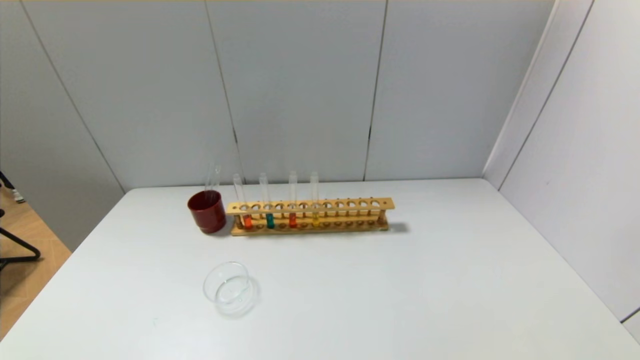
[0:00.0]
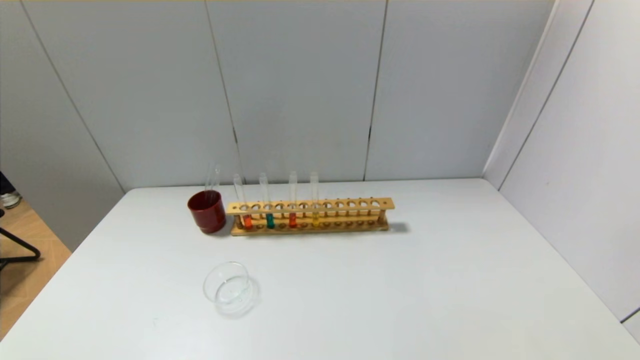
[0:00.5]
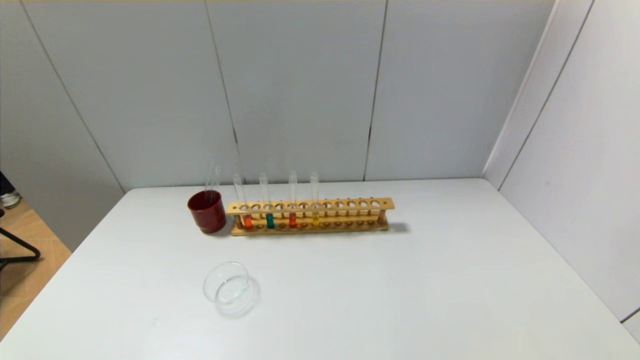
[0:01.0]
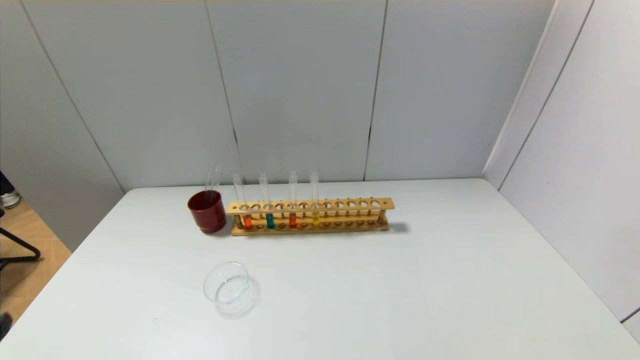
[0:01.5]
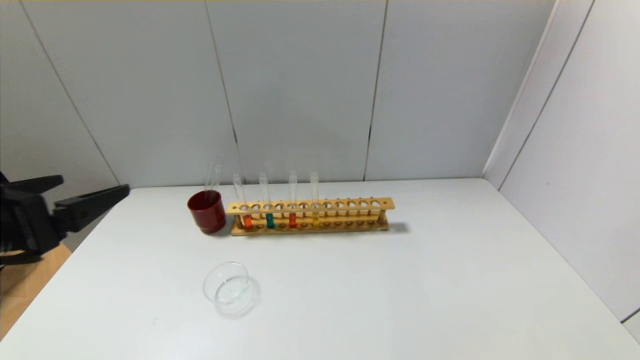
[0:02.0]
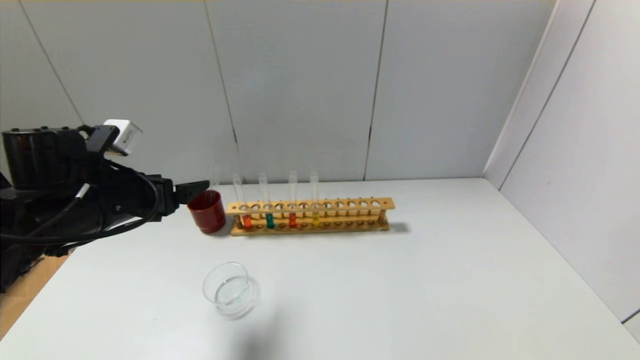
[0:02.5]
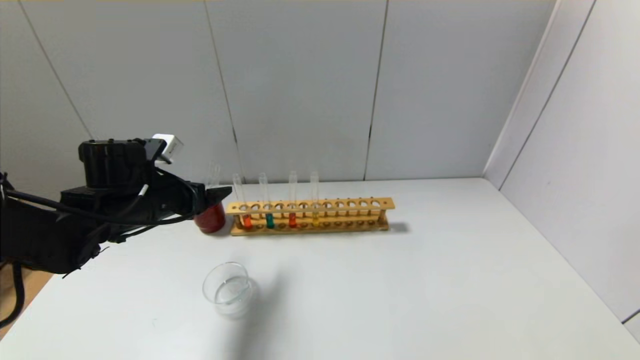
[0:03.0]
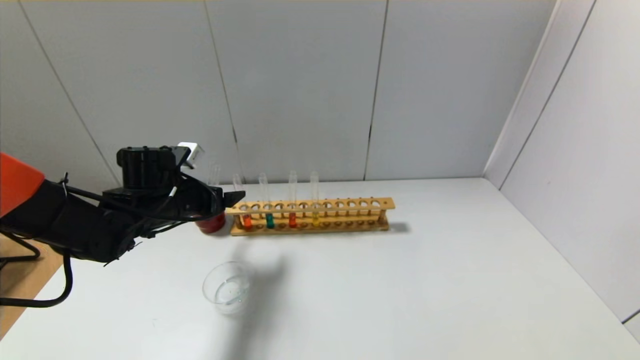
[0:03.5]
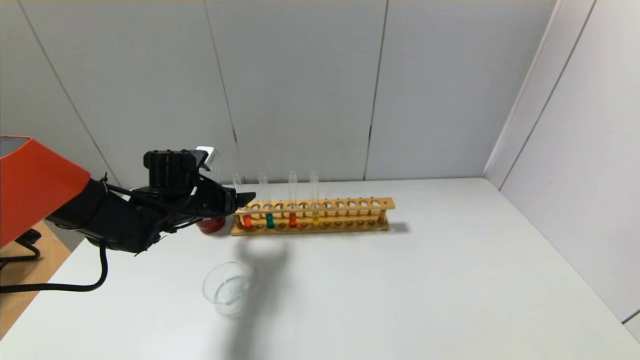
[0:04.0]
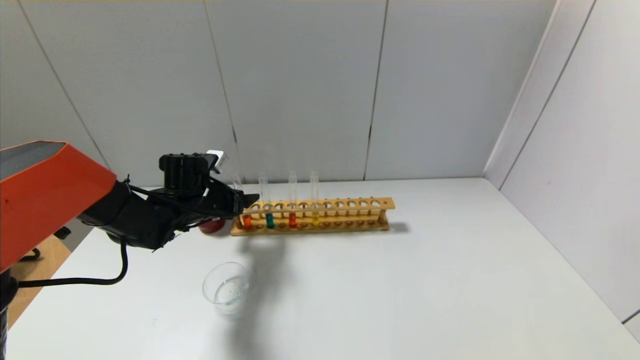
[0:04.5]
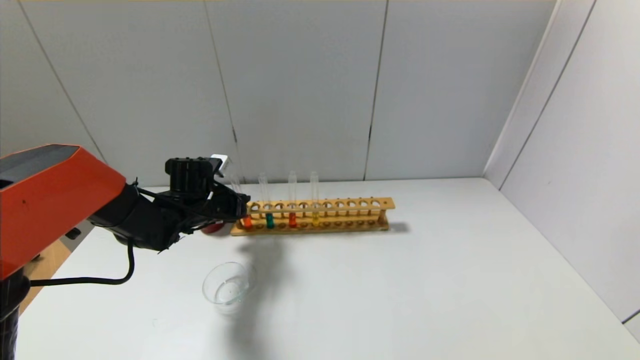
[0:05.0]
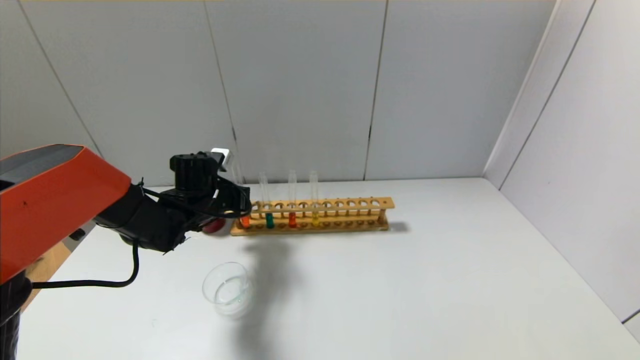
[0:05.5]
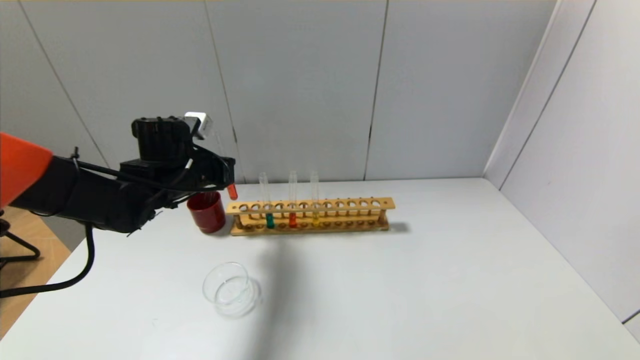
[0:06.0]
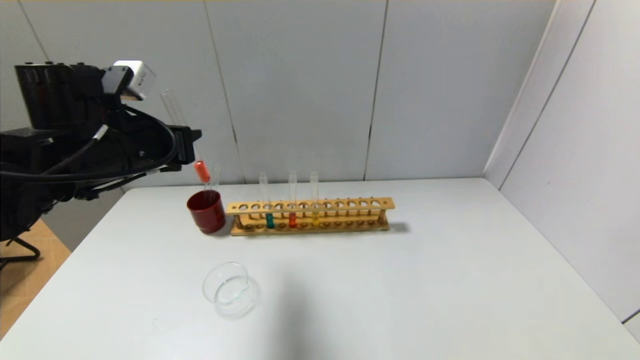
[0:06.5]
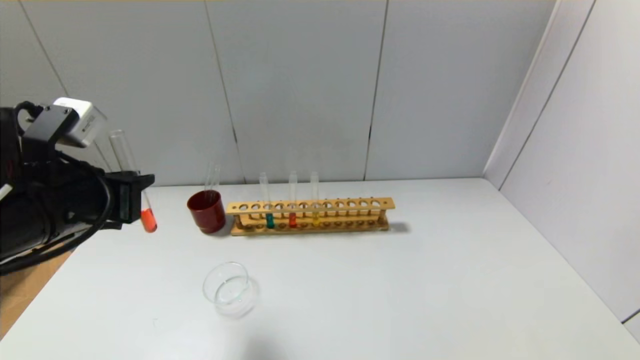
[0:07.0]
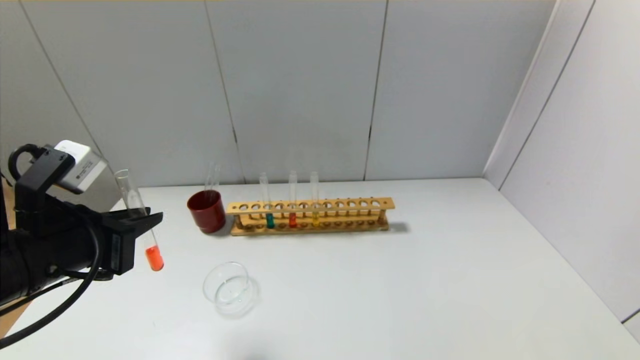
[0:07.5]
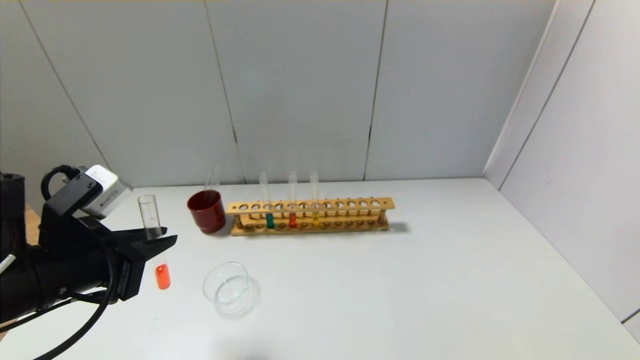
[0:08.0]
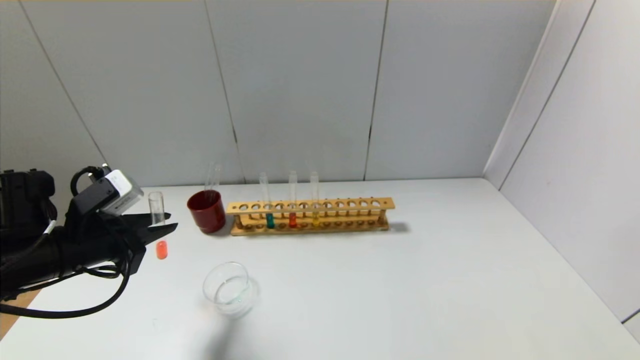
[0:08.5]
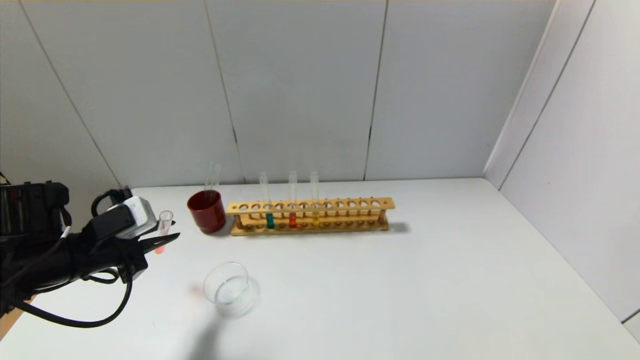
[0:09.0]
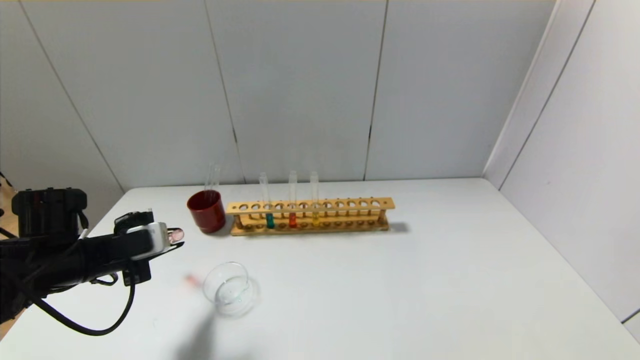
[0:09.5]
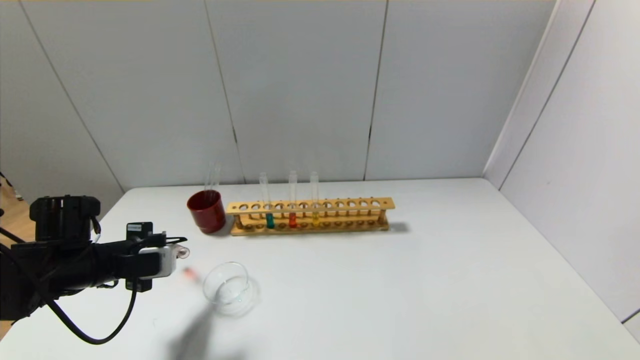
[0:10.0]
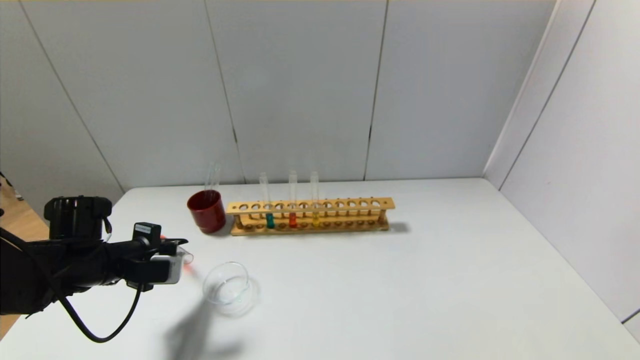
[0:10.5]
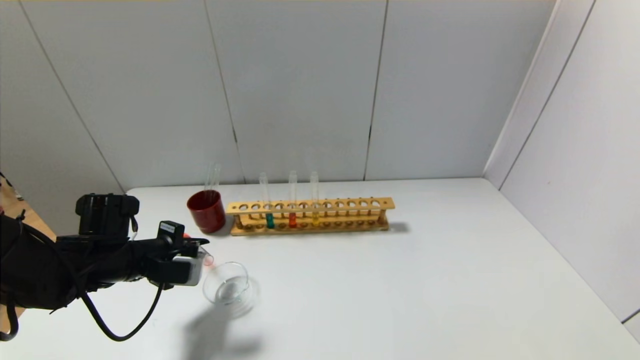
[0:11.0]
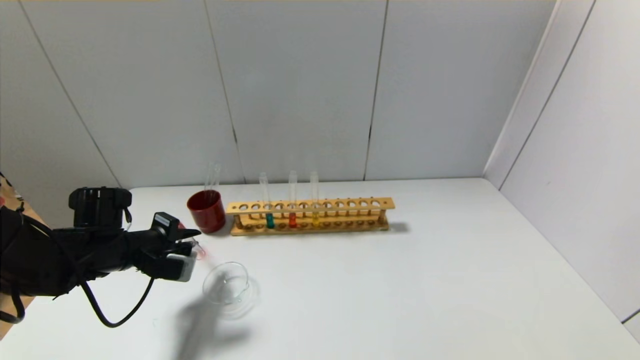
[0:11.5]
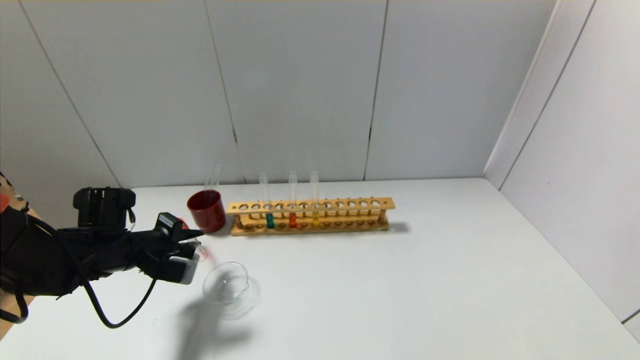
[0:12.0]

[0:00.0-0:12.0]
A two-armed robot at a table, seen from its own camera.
Step, 0:00.0 to 0:05.0: Grasp the red reagent with the left gripper.
0:00.0 to 0:02.0: The left gripper heads upward and forward, covering approximately 25 cm.
0:02.0 to 0:04.0: The left gripper is displaced forward and downward by approximately 25 cm.
0:04.0 to 0:06.0: The left gripper travels upward by some 5 cm, and closes.
0:06.0 to 0:08.0: The left gripper shifts roughly 20 cm backward.
0:08.0 to 0:10.0: The left gripper shifts about 15 cm downward, forward and to the left.

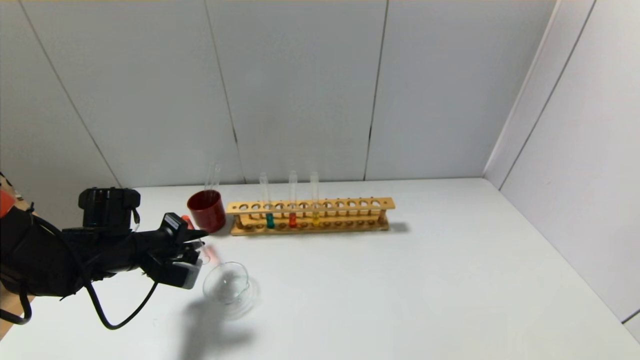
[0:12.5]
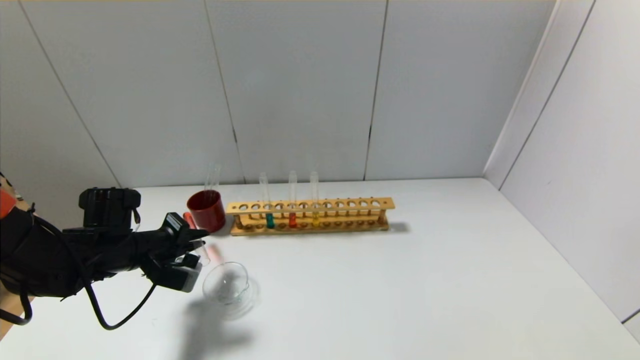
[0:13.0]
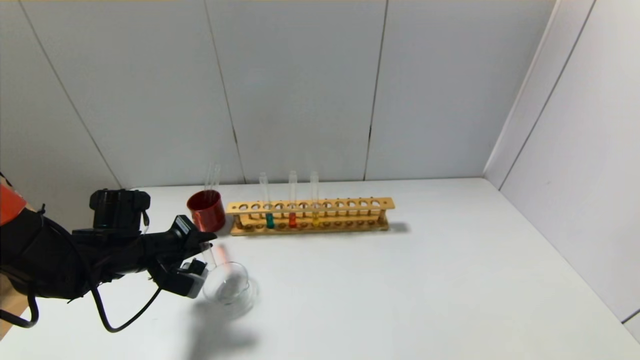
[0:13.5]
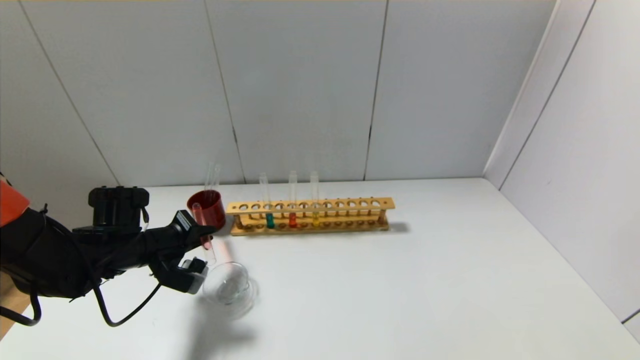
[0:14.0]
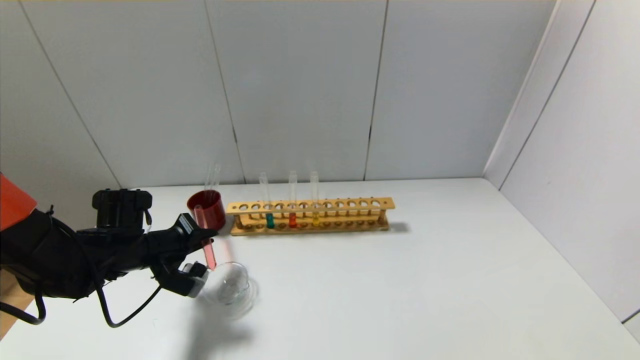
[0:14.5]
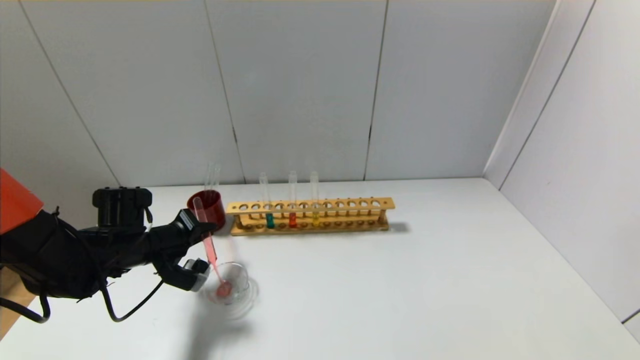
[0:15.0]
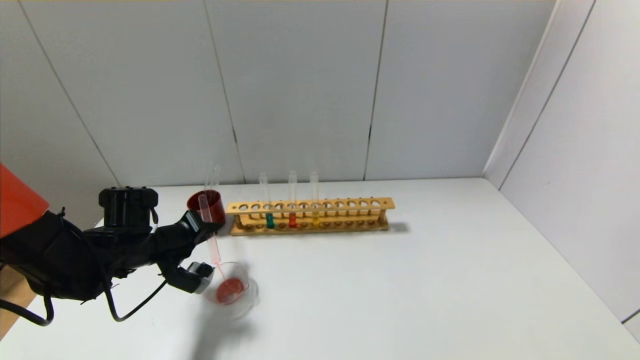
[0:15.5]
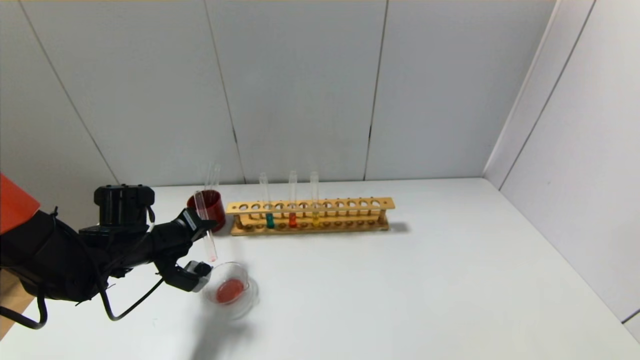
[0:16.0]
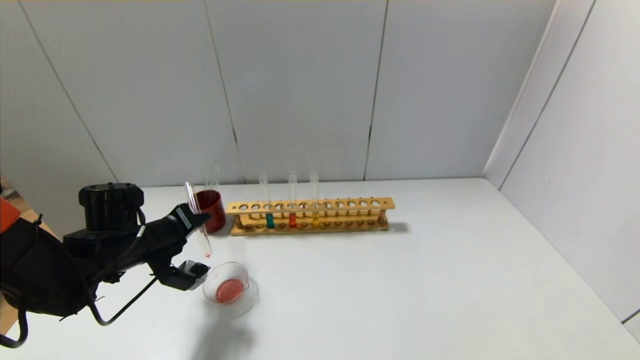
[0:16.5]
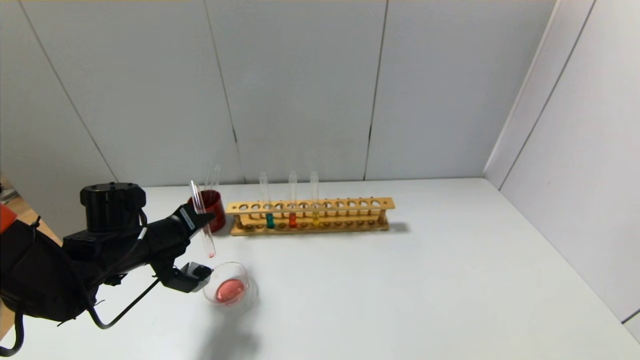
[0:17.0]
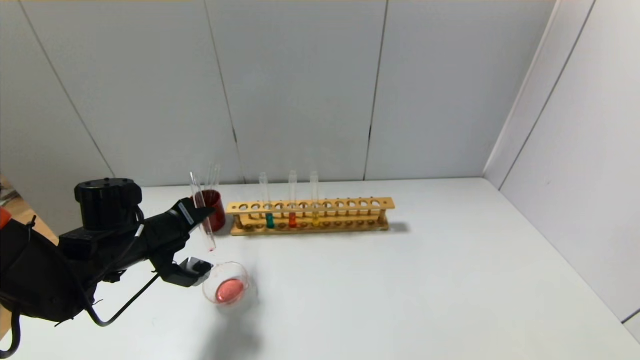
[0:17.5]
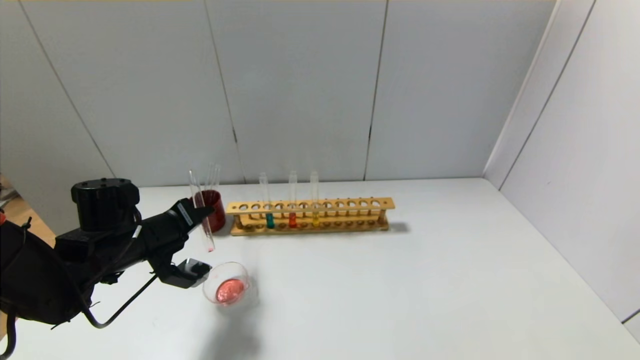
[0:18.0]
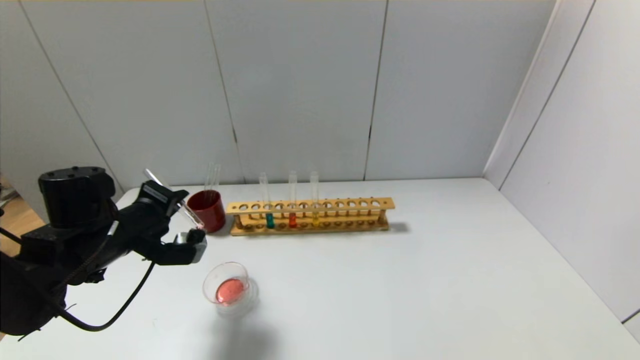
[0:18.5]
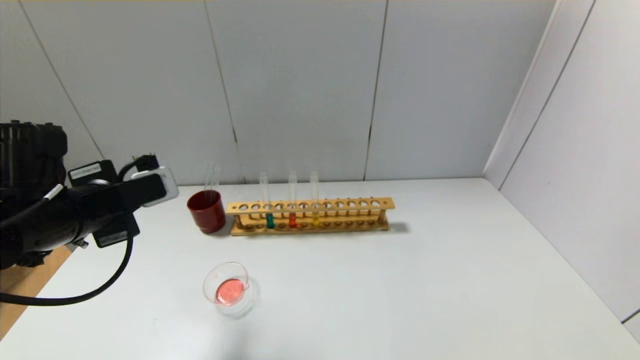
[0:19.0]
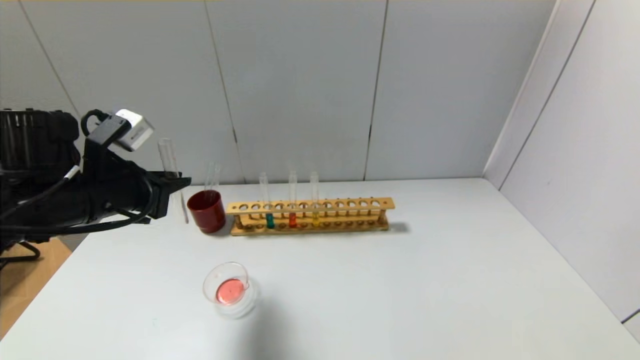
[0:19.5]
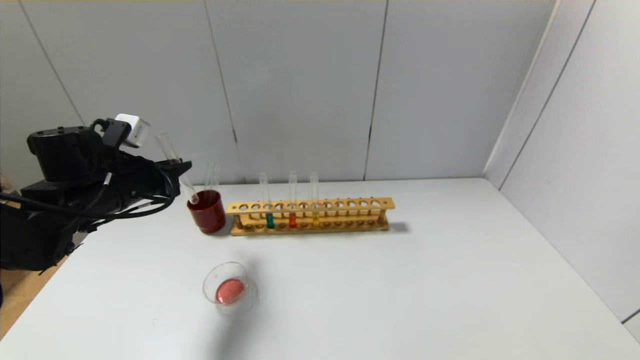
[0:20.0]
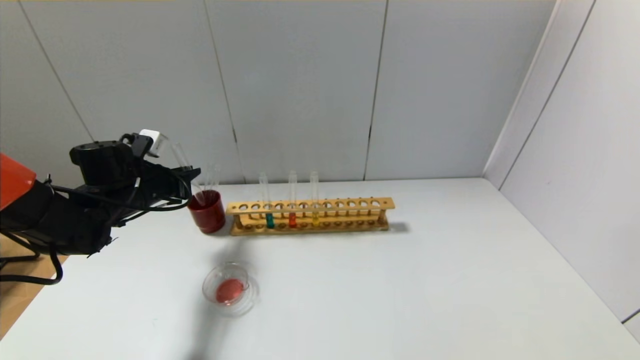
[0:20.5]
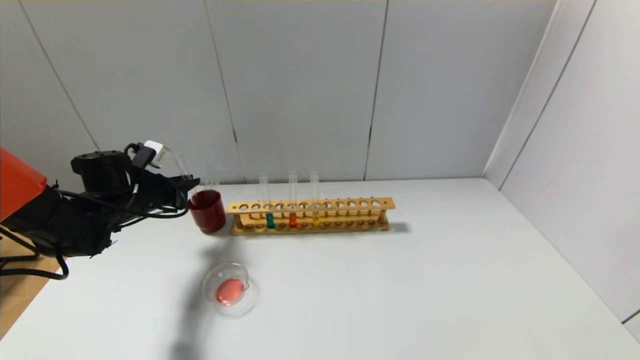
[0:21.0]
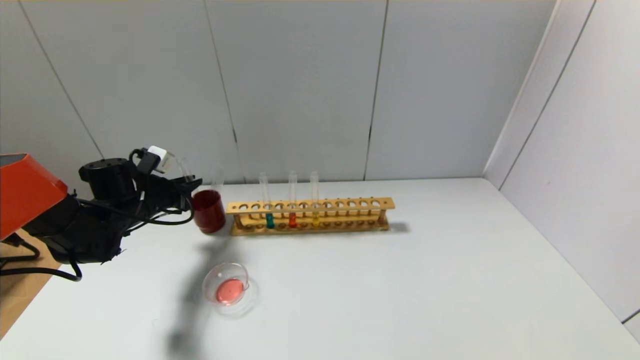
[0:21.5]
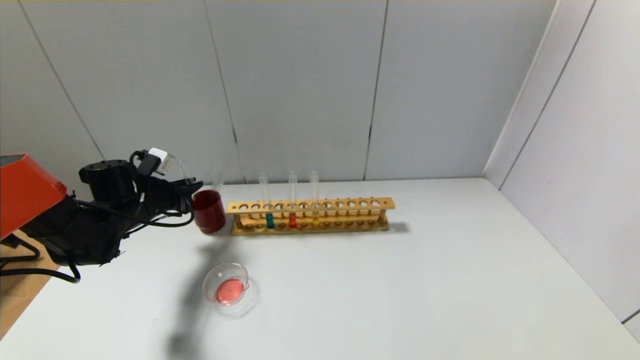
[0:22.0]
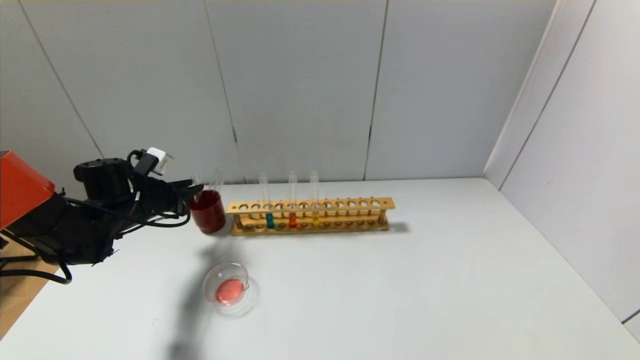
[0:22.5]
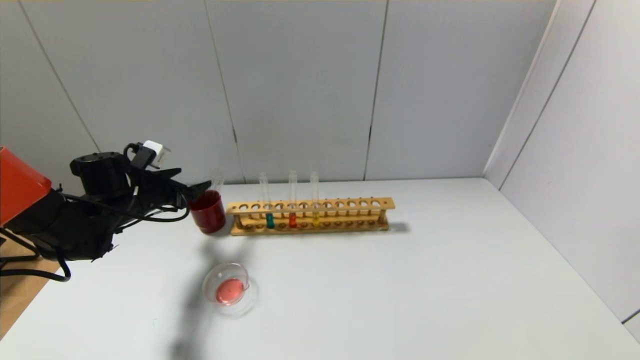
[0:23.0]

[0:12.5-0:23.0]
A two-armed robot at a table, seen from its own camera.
Step, 0:12.5 to 0:18.0: Pour the red reagent into the graduated cylinder with the left gripper.
Step, 0:18.5 to 0:22.5: Place the test tube into the brown cup with the left gripper.
0:12.5 to 0:14.5: There are only small adjustments of the grippers.
0:16.5 to 0:19.0: The left gripper heads upward and backward, covering roughly 15 cm.
0:19.0 to 0:21.0: The left gripper is displaced forward and downward by about 20 cm.
0:21.0 to 0:23.0: The left gripper opens up.
